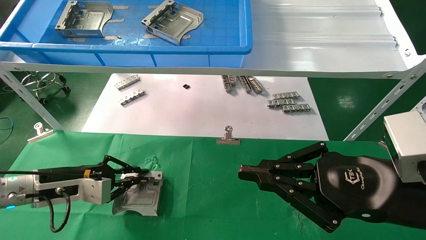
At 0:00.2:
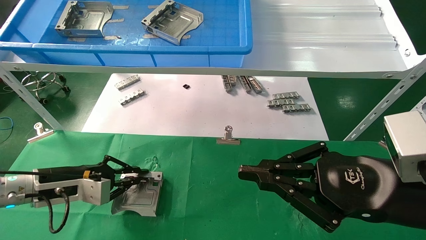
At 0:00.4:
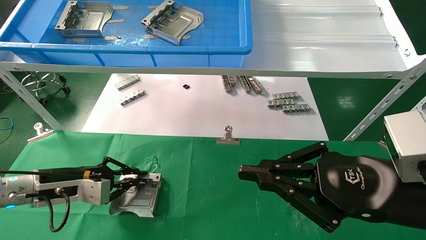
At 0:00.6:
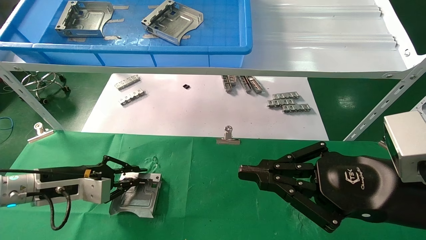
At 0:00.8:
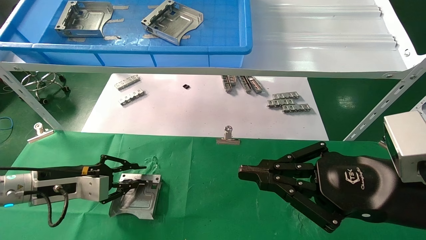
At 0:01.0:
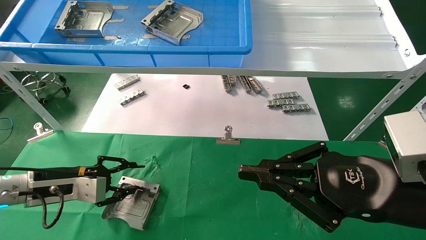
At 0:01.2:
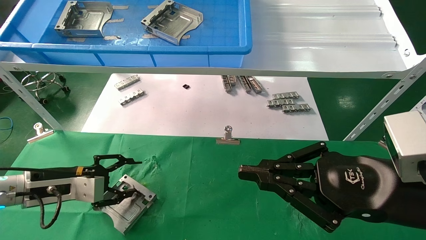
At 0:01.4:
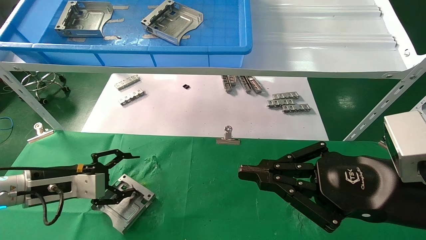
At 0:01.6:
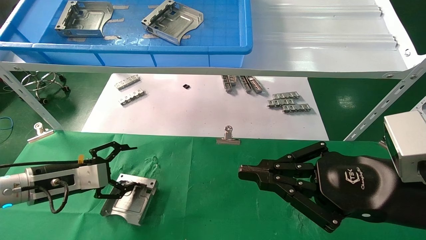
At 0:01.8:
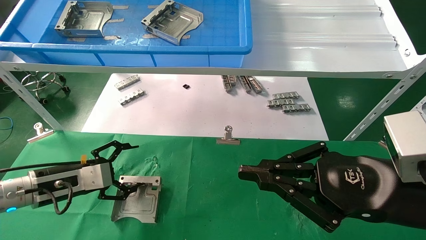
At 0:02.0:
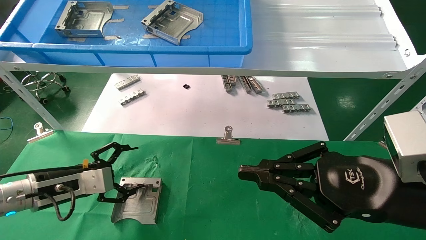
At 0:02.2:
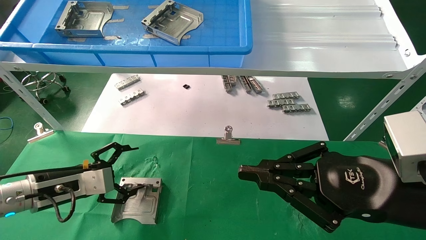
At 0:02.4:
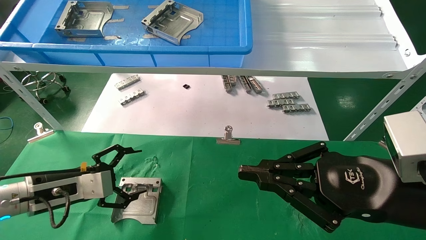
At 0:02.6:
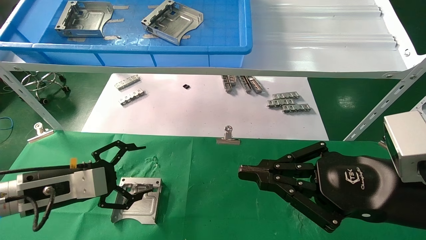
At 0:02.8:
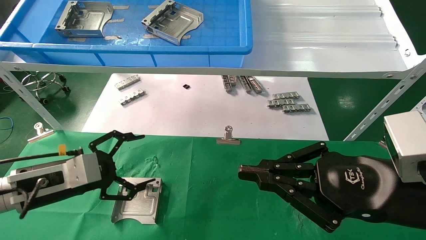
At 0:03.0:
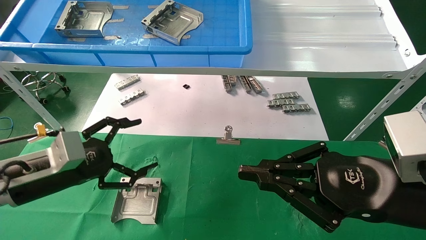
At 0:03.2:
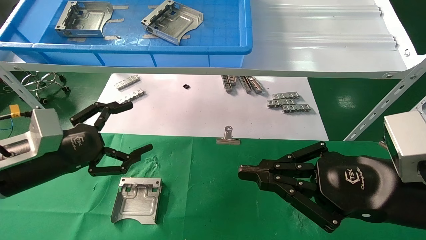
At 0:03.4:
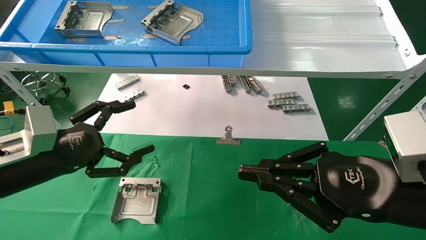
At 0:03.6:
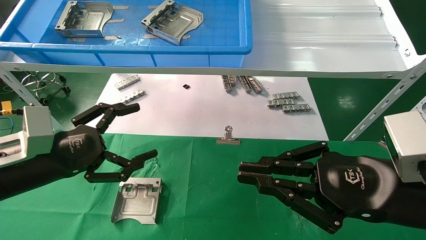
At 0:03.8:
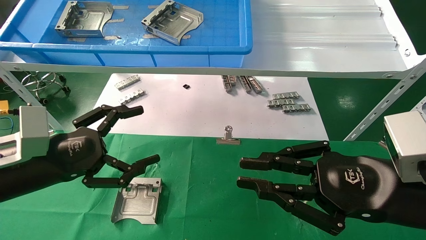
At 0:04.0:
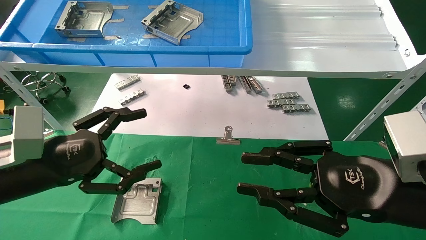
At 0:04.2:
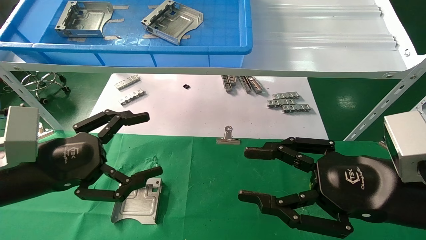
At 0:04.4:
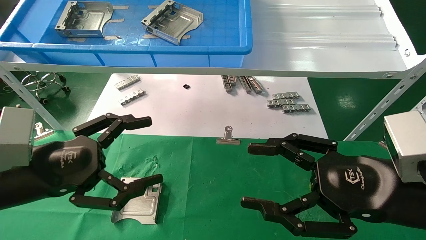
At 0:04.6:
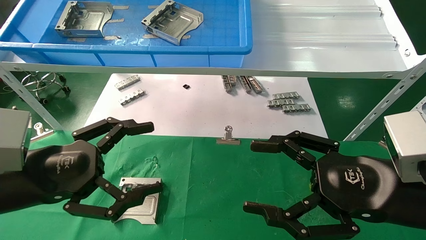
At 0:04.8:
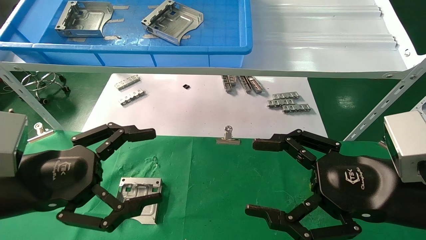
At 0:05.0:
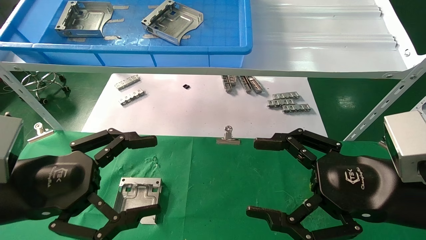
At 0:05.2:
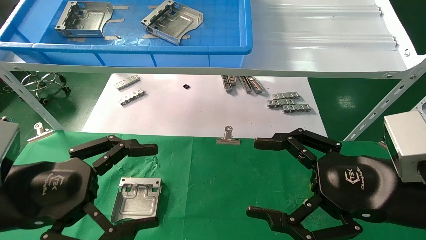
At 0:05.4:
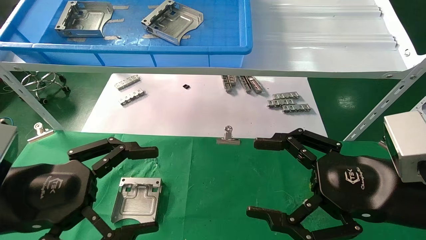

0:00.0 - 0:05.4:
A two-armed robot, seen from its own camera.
Task of the whole recording: use the mechanical arm to pick up the parts and place them on the table.
0:00.0 - 0:01.4: The left gripper opens.
0:01.4 - 0:02.8: The left gripper travels backward by about 5 cm, and opens.
0:02.8 - 0:04.0: The left gripper is displaced backward and upward by approximately 5 cm.
0:04.0 - 0:05.4: The right gripper opens its fingers. Meanwhile the left gripper is displaced backward by approximately 5 cm.
